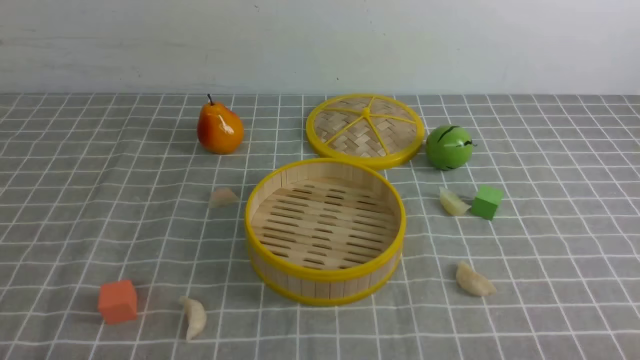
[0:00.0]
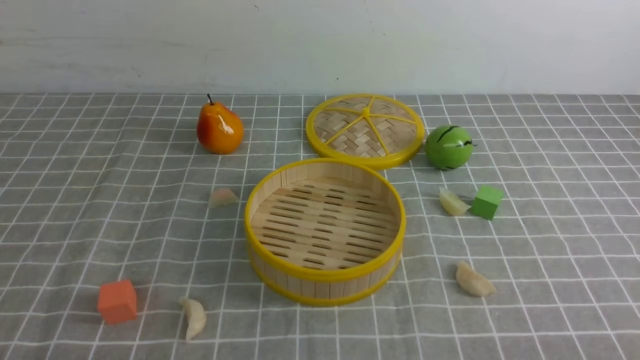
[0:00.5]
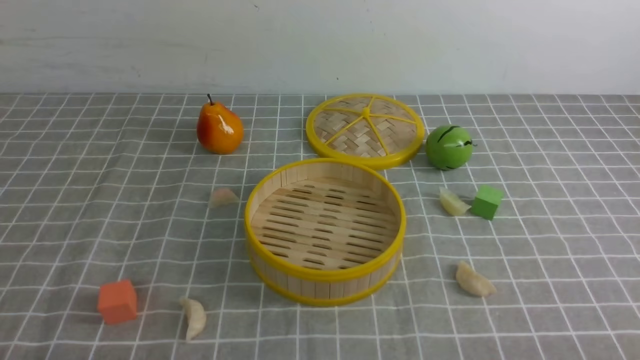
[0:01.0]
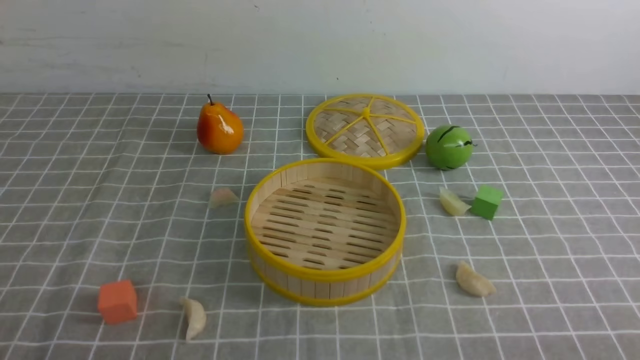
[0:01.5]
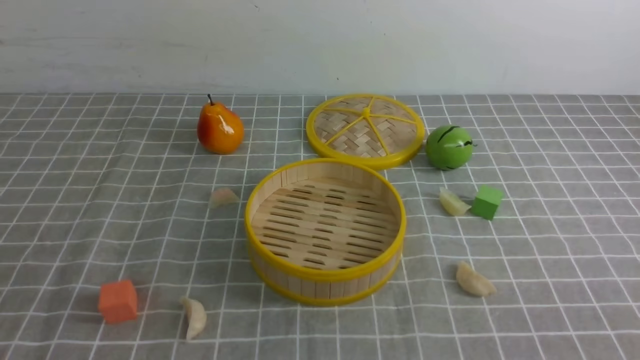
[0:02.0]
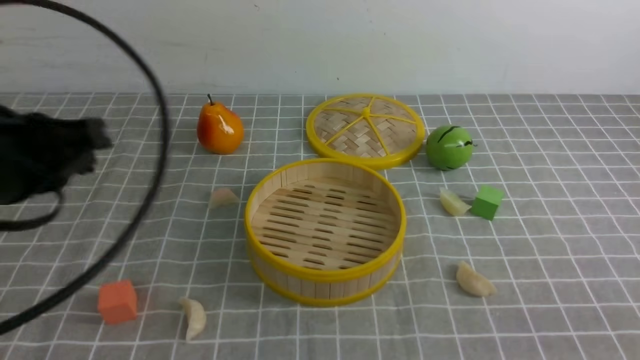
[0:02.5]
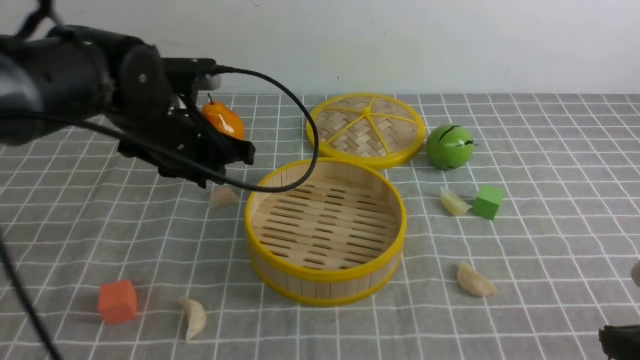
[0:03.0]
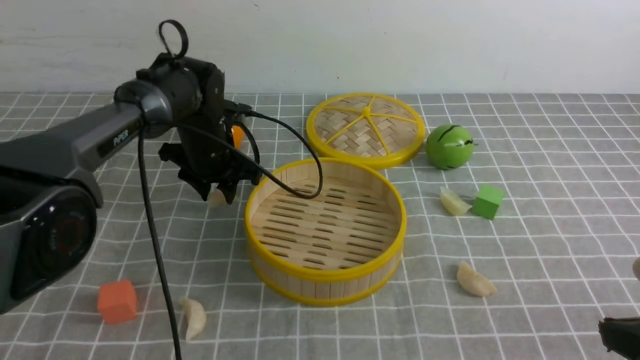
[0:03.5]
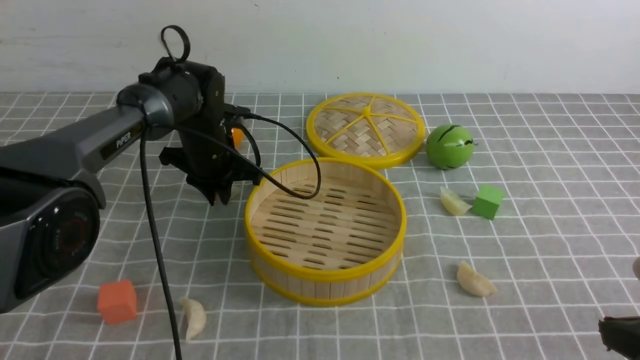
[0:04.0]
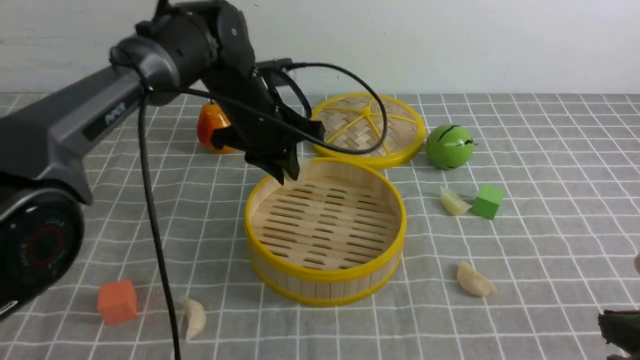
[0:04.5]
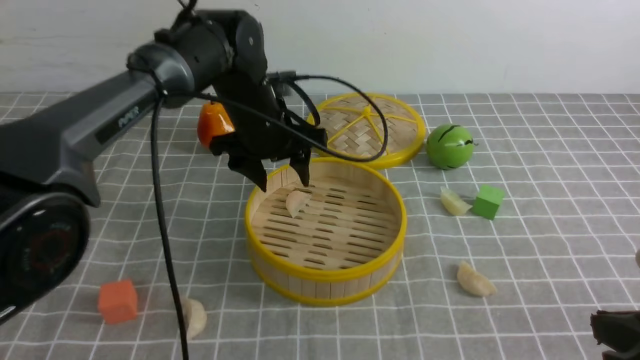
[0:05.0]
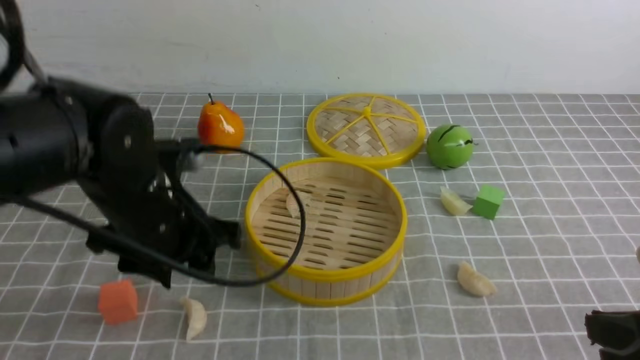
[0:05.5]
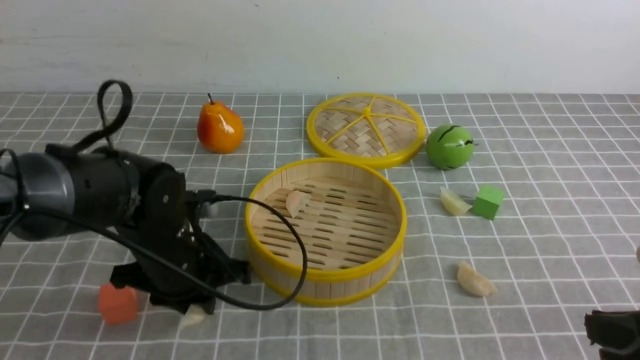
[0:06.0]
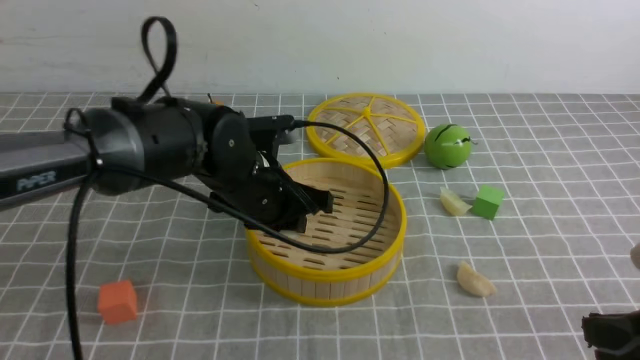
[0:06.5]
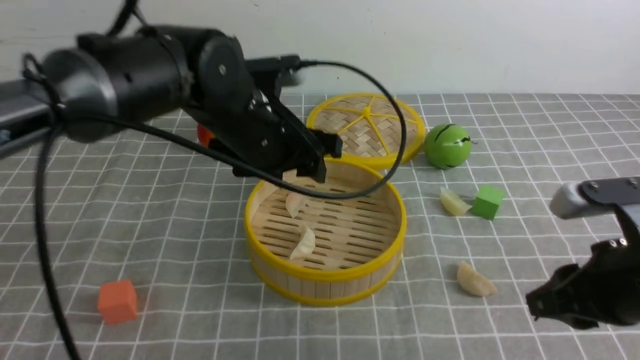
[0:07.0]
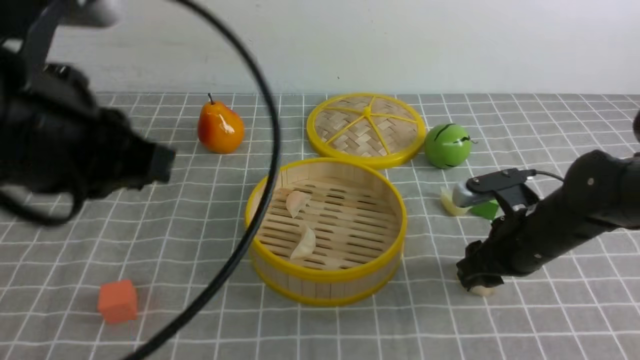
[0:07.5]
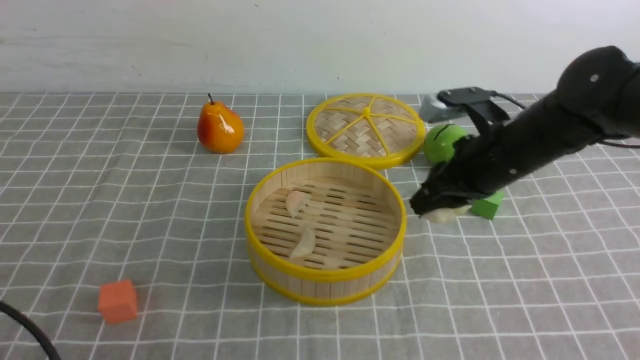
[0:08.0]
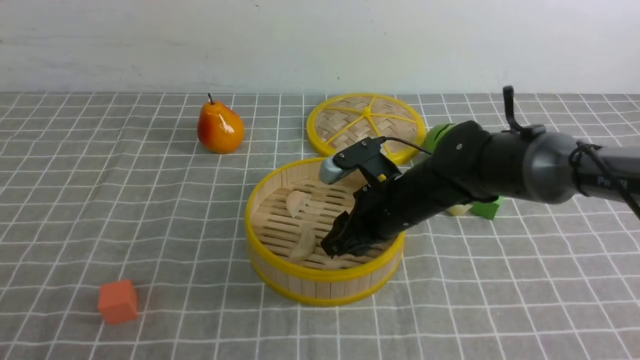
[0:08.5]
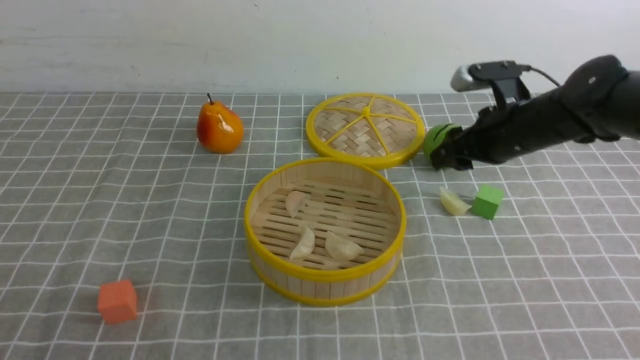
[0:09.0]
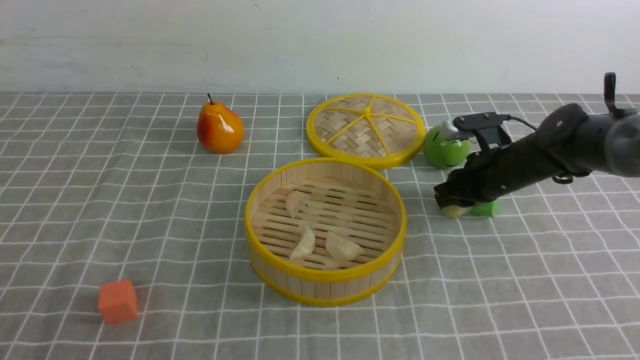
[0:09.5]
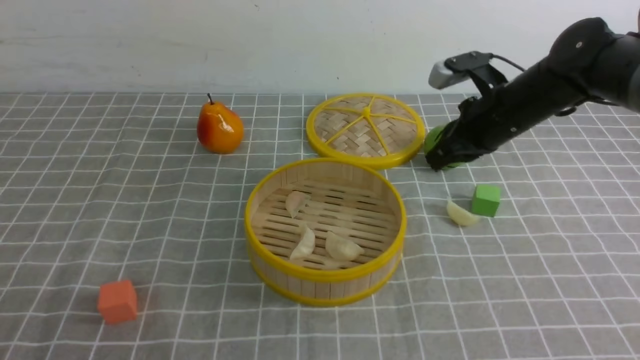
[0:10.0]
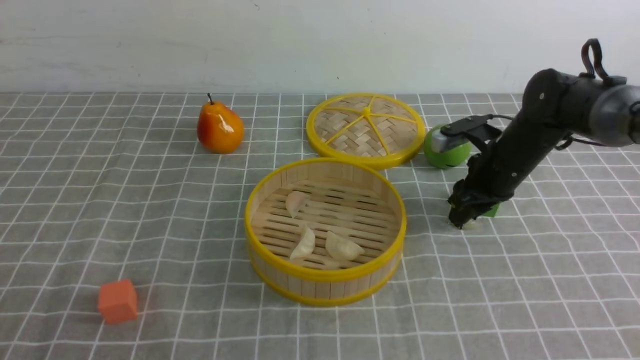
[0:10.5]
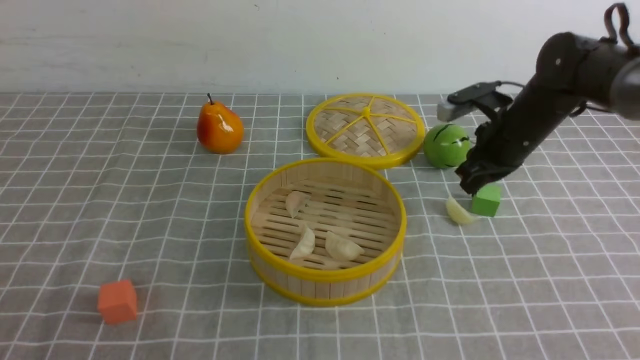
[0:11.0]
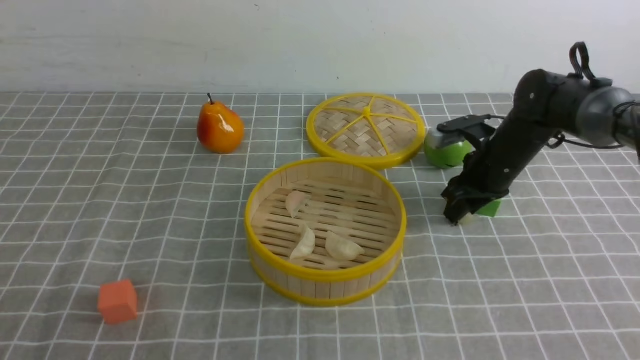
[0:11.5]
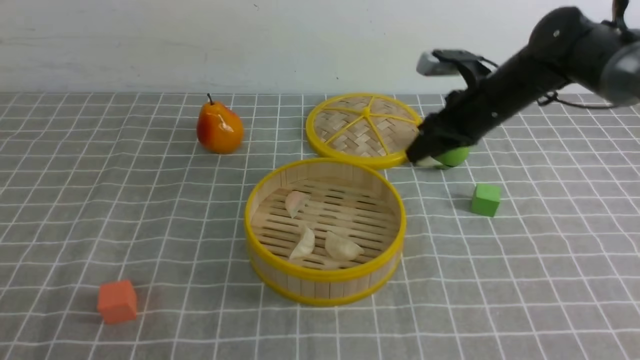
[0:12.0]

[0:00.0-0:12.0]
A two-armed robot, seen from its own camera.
Task of the whole recording: put the dumplings into the steamer on the table with the grey tablecloth.
Step, 0:00.0 to 0:04.0: use the left arm to grab a dumpling.
Step, 0:04.5 to 0:05.0: use the left arm to put the dumpling into the steamer.
Step, 0:07.0 to 0:07.5: use the right arm to grab a dumpling.
Step, 0:08.0 to 0:08.5: use the right arm to put the dumpling into the steamer.
Step, 0:09.0 to 0:11.5: use the right arm to grab a dumpling.
0:02.0 to 0:04.0: The left gripper shifts about 50 cm forward, and opens and closes again. The right gripper moves forward, some 10 cm.
0:04.0 to 0:06.0: The left gripper travels backward by approximately 20 cm, and opens and closes again.
0:06.0 to 0:08.0: The left gripper moves backward, upward and to the left, some 25 cm, and closes its fingers; the right gripper heads forward, covering about 25 cm, and opens, then closes again.
0:08.0 to 0:10.0: The right gripper is displaced forward by about 10 cm, moves roughly 10 cm to the left and comes back, and opens, then closes again.
0:10.0 to 0:12.0: The right gripper opens.

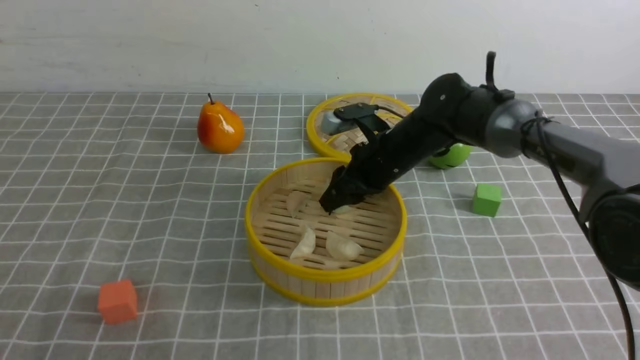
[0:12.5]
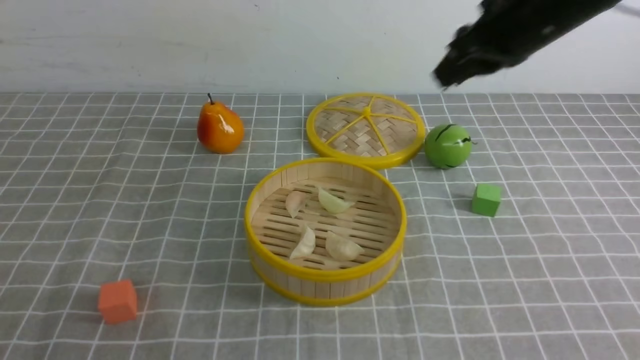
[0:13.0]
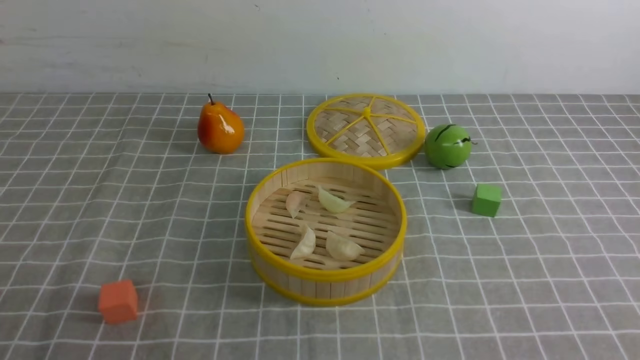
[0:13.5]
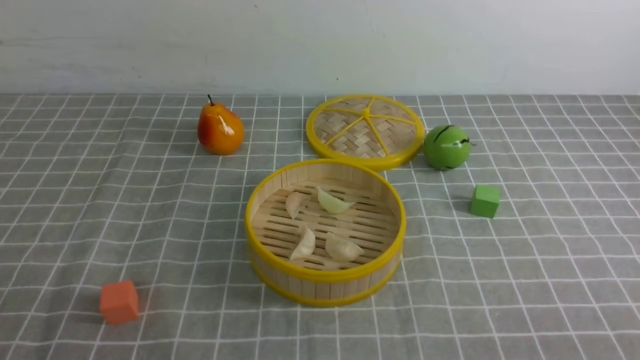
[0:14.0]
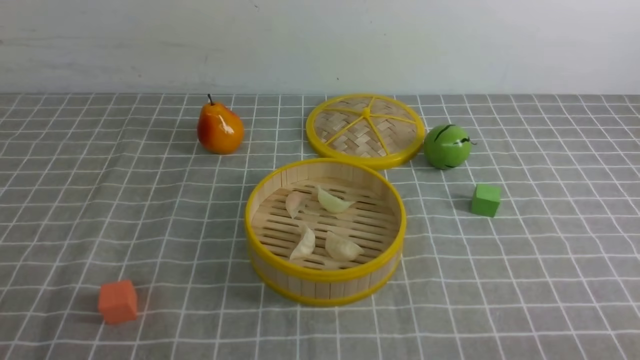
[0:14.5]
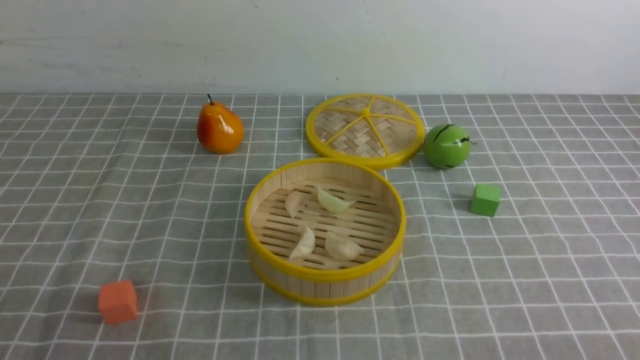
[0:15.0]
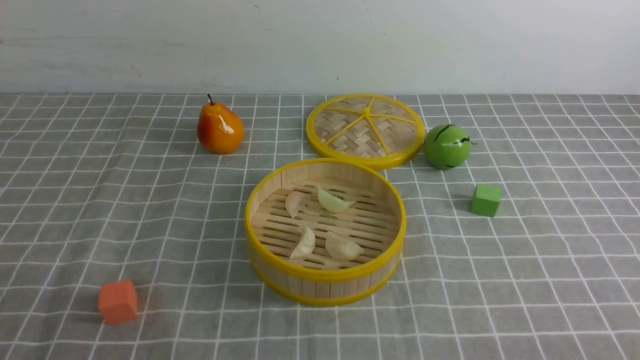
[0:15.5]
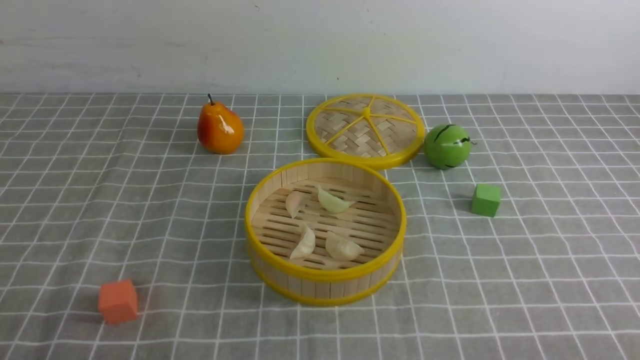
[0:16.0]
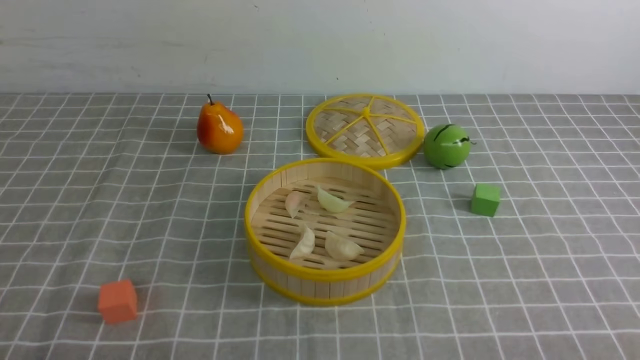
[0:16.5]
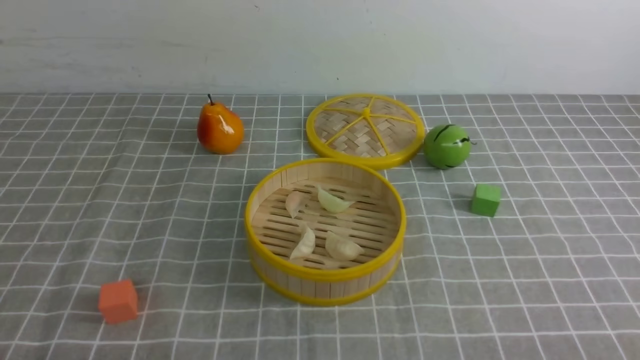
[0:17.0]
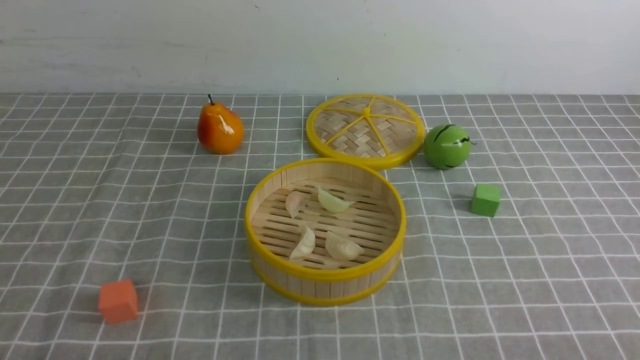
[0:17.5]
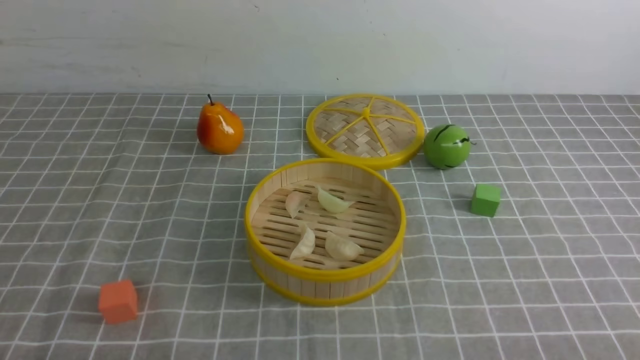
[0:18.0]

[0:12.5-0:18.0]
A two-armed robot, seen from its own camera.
Task of the whole recording: put the dumplings into the steamer on the table with the grey tablecloth.
0:12.5 to 0:14.5: The right gripper shifts about 50 cm backward and to the right, and closes up.
